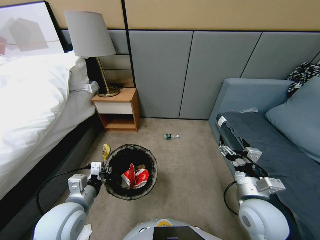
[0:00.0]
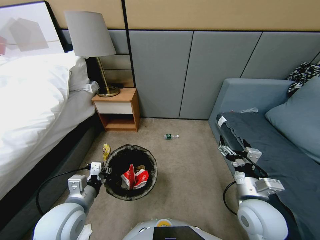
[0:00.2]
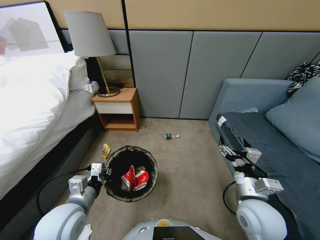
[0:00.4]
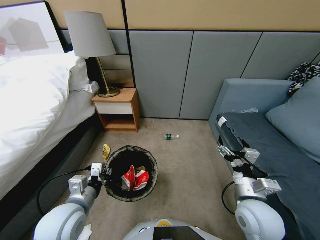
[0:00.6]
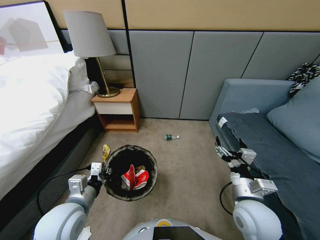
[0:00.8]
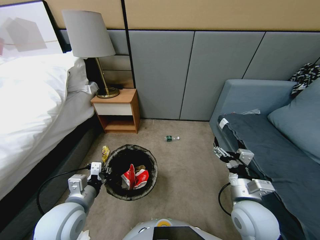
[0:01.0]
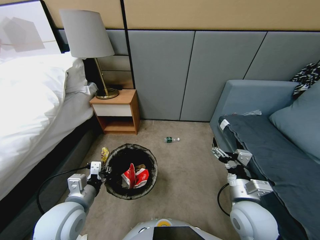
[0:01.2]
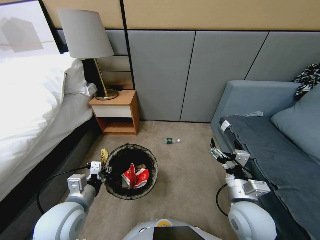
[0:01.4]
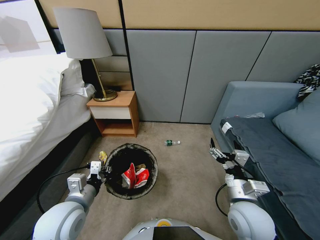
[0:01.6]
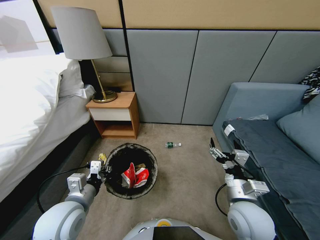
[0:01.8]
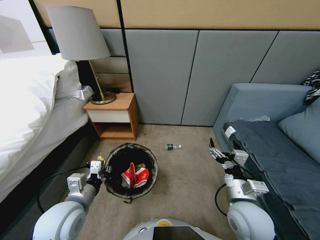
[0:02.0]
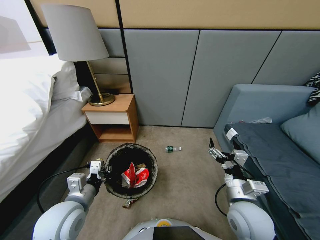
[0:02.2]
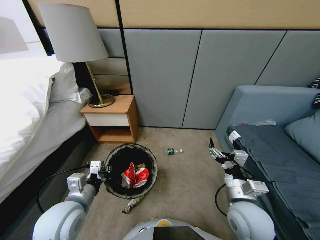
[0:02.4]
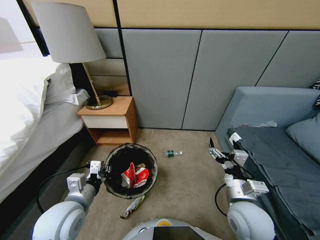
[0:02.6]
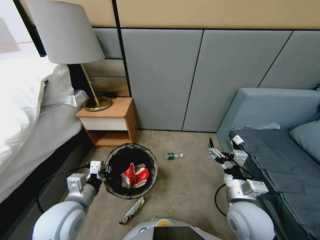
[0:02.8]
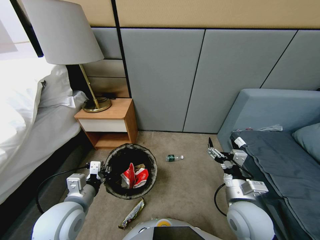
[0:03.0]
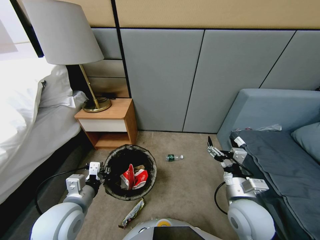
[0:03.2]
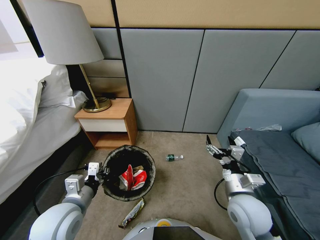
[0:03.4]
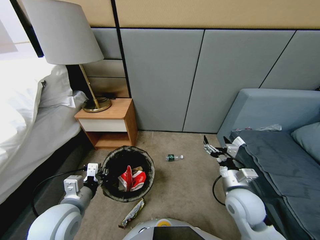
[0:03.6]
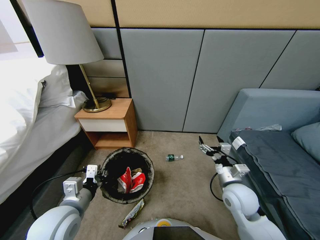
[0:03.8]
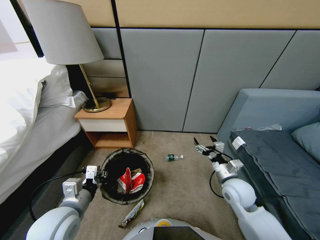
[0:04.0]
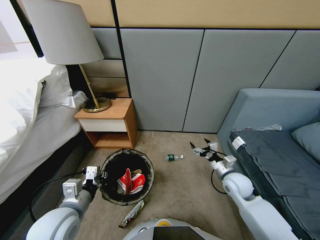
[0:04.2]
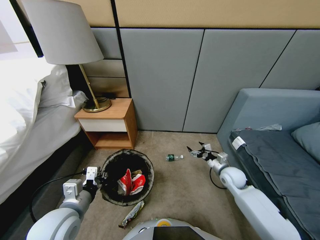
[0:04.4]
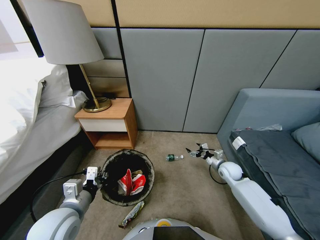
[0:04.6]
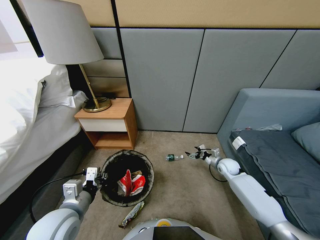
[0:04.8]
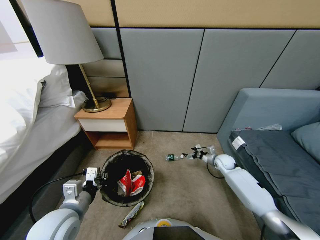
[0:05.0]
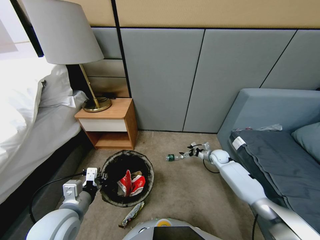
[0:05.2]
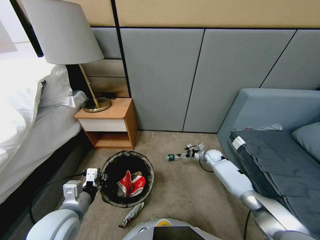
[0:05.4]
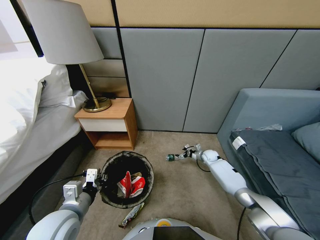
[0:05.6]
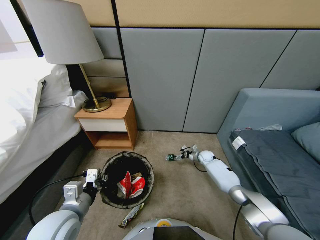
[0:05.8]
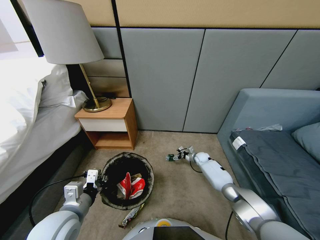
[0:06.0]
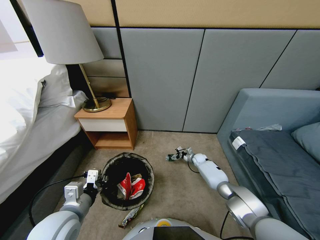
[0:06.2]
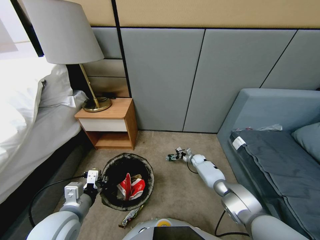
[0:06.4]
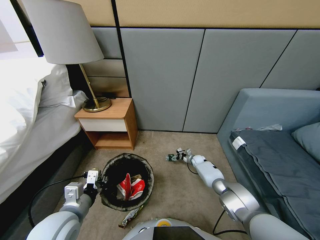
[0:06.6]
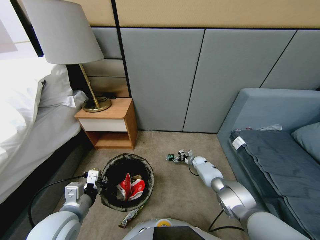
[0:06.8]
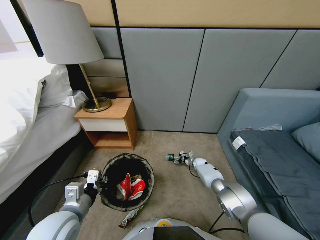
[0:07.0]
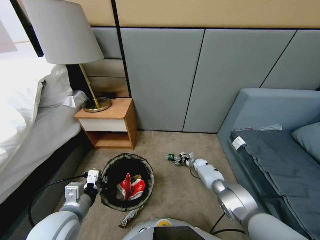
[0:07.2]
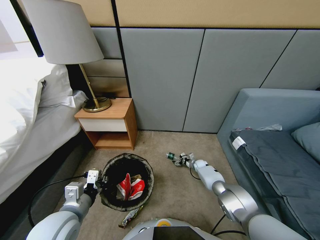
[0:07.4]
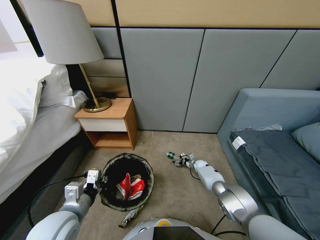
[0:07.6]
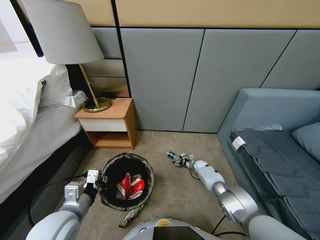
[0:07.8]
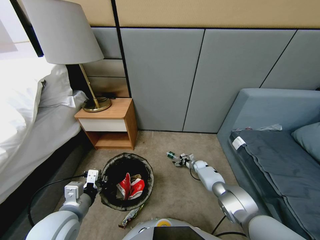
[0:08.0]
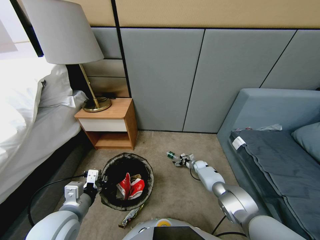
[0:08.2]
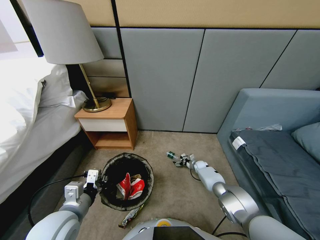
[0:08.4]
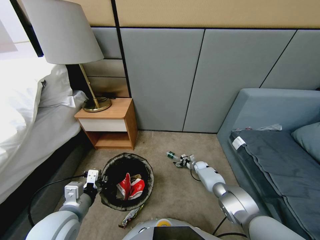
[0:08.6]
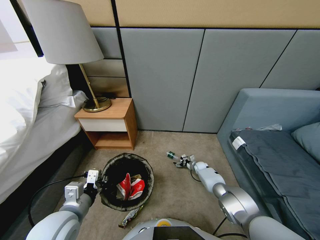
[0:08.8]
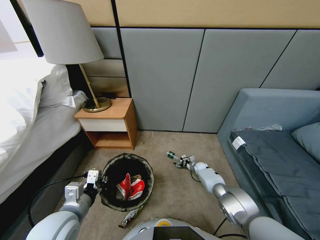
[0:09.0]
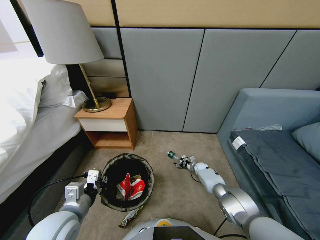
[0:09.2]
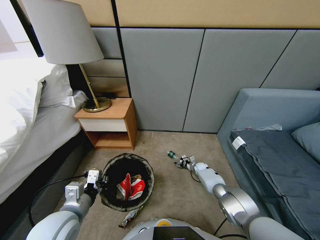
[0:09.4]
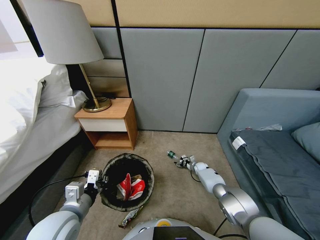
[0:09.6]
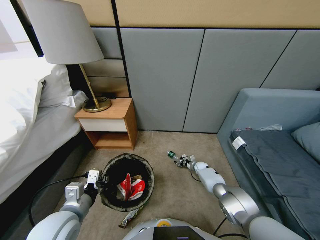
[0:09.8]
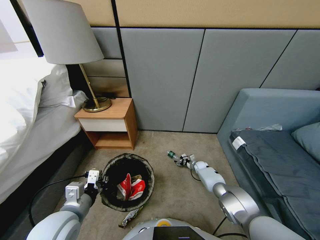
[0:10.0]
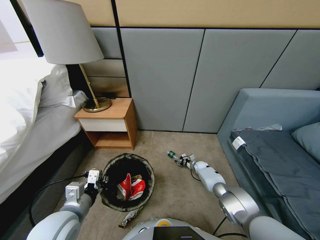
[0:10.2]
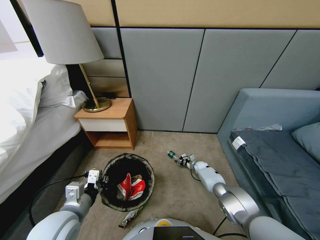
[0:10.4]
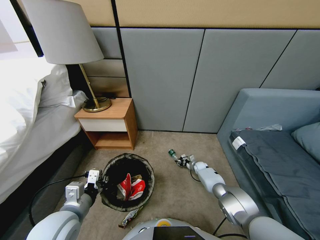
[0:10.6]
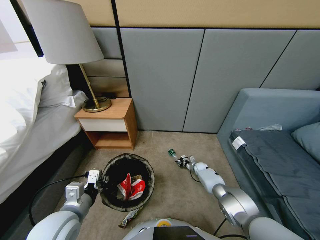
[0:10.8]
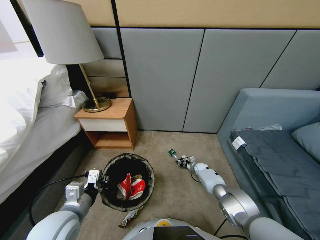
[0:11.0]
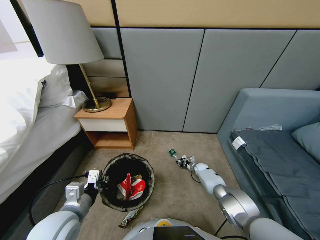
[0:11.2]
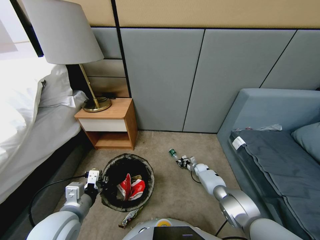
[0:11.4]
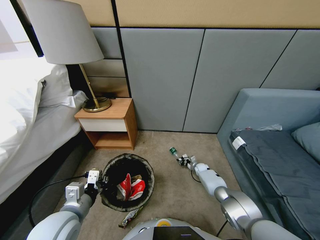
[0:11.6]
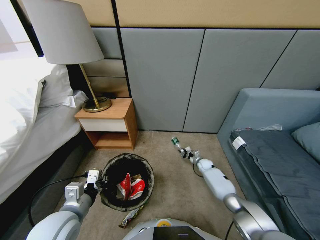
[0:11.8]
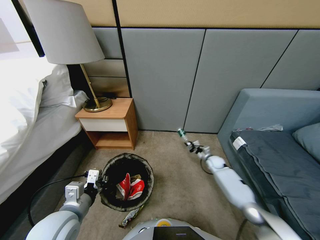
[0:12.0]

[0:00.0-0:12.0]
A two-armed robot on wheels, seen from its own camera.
Task of the whole recording: Pick up the trash bin, then pick up the garbage from the floor and place it into the trash bin.
0:00.0 to 0:01.6: The grippers make only small movements.
0:03.0 to 0:04.4: The right gripper travels forward, downward and to the right by about 25 cm.
0:04.4 to 0:06.0: The right gripper goes about 20 cm forward and downward.
0:06.0 to 0:07.6: The right gripper moves downward, about 5 cm.
0:07.6 to 0:09.0: The grippers move only a little.
0:09.0 to 0:10.4: Both grippers stay about where they are.
0:10.4 to 0:12.0: The right gripper travels upward by some 20 cm.

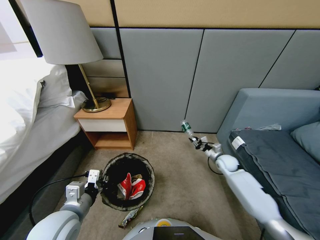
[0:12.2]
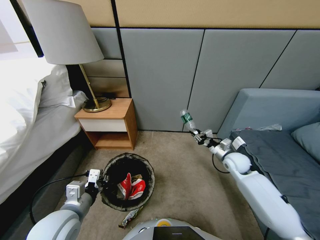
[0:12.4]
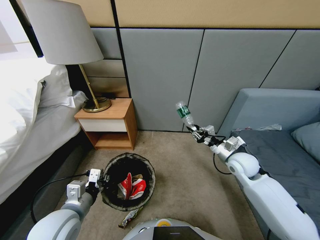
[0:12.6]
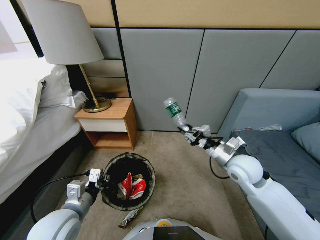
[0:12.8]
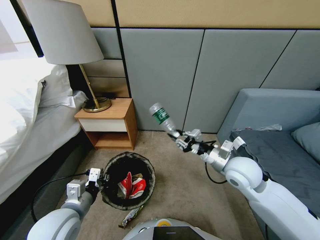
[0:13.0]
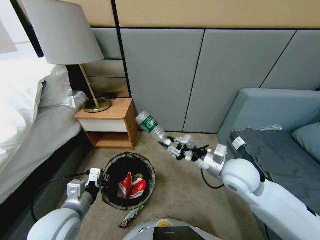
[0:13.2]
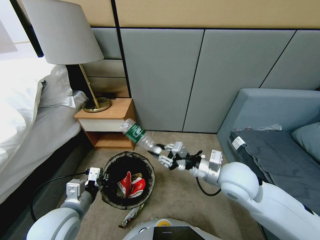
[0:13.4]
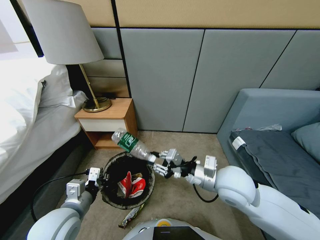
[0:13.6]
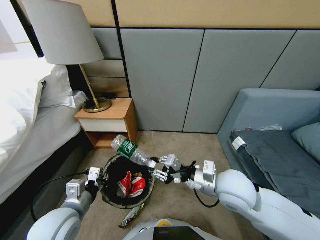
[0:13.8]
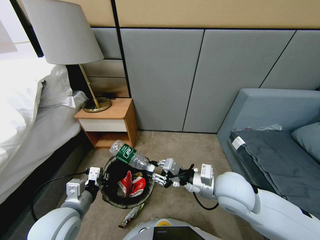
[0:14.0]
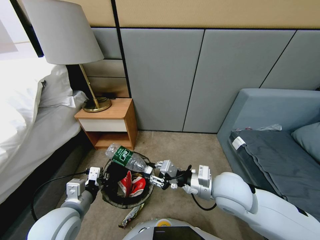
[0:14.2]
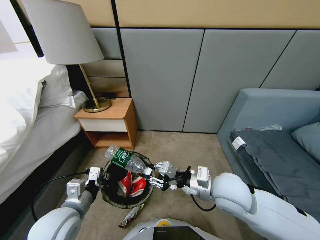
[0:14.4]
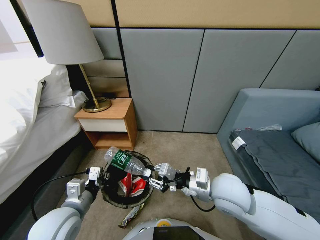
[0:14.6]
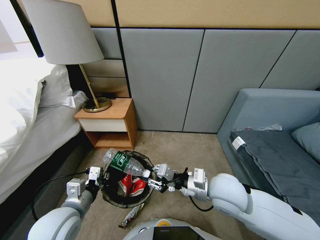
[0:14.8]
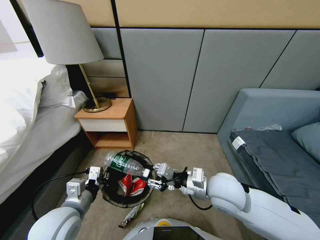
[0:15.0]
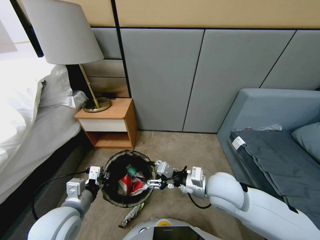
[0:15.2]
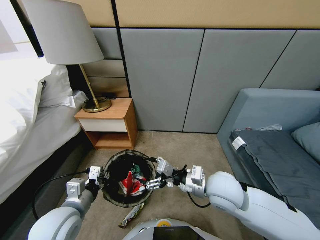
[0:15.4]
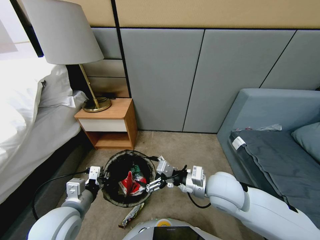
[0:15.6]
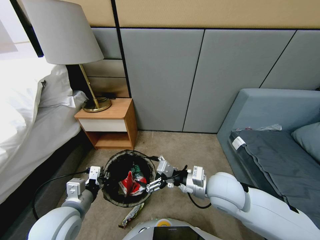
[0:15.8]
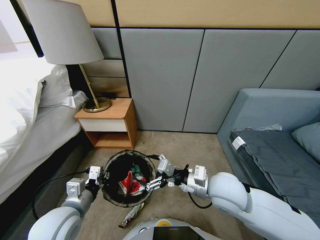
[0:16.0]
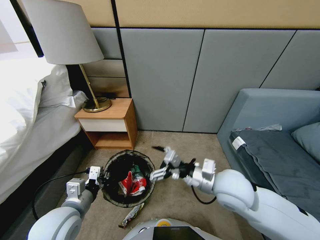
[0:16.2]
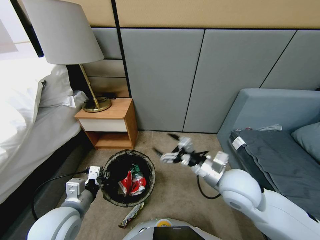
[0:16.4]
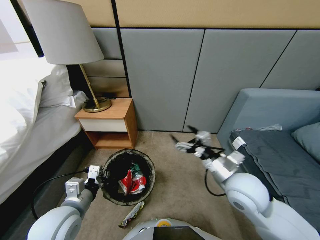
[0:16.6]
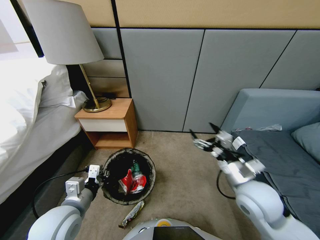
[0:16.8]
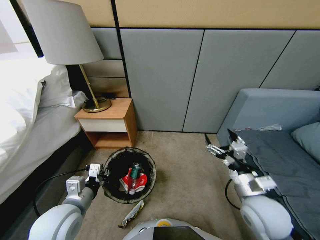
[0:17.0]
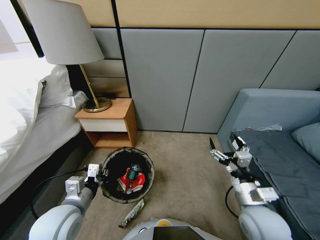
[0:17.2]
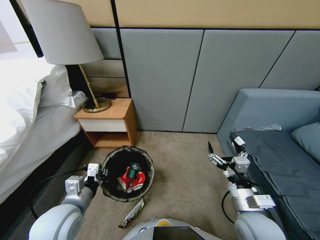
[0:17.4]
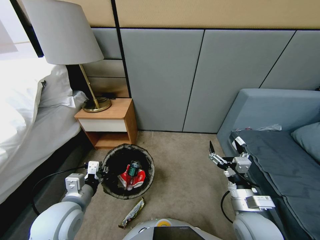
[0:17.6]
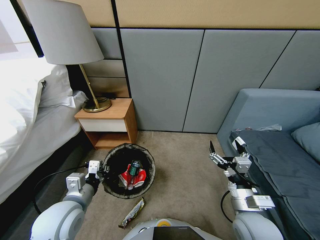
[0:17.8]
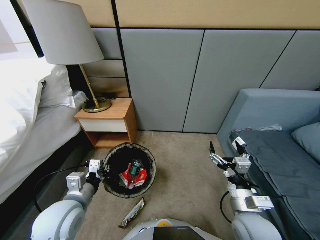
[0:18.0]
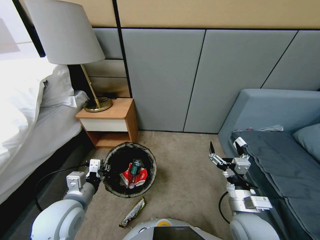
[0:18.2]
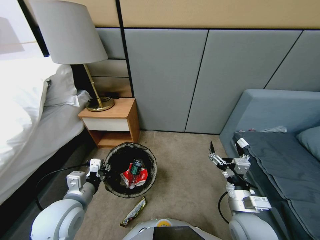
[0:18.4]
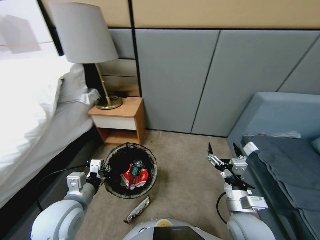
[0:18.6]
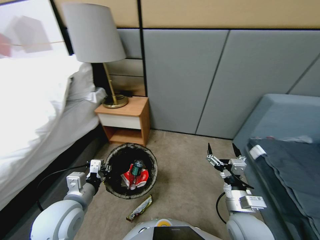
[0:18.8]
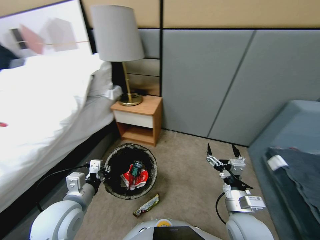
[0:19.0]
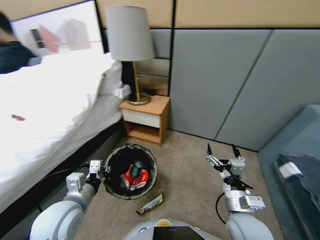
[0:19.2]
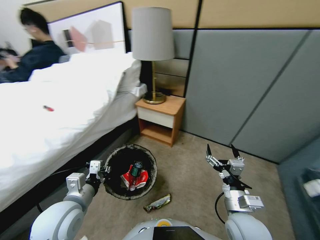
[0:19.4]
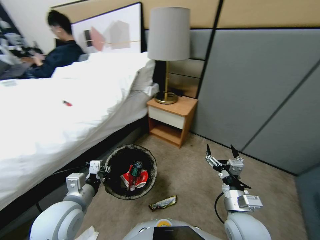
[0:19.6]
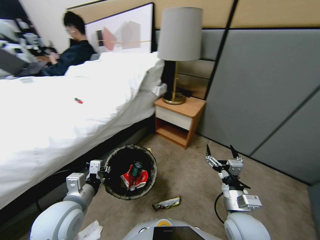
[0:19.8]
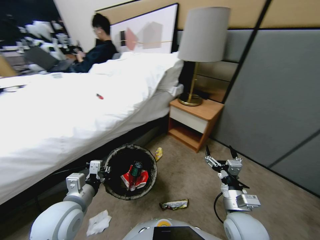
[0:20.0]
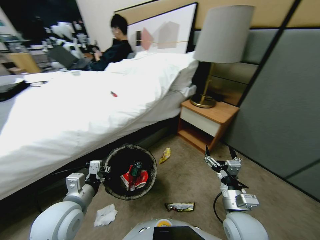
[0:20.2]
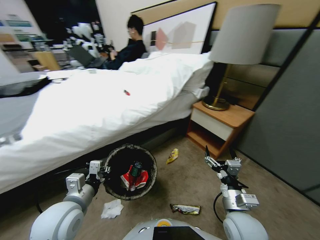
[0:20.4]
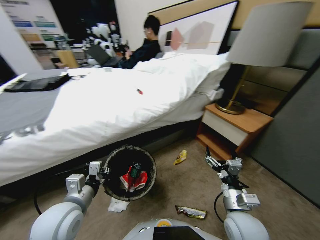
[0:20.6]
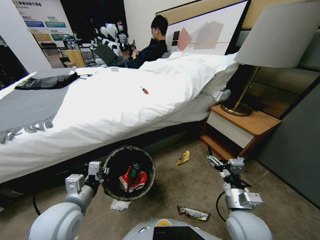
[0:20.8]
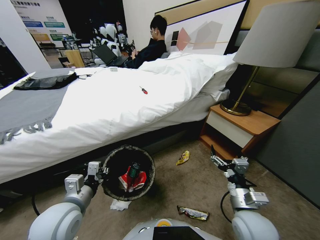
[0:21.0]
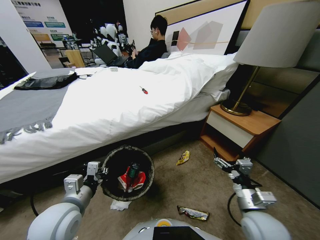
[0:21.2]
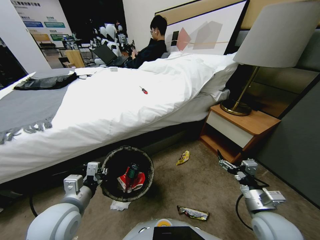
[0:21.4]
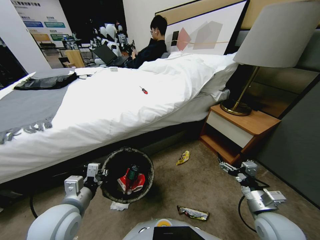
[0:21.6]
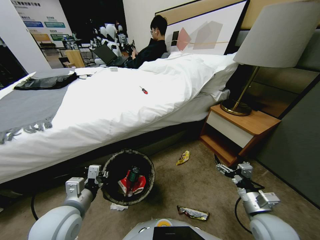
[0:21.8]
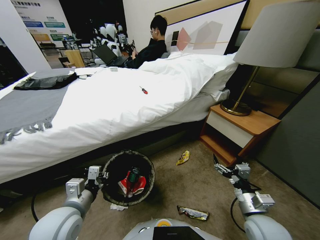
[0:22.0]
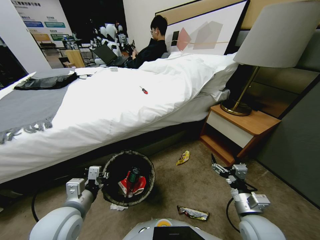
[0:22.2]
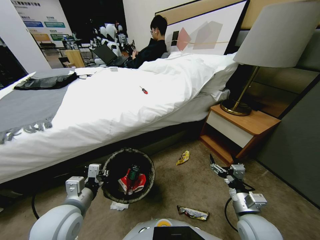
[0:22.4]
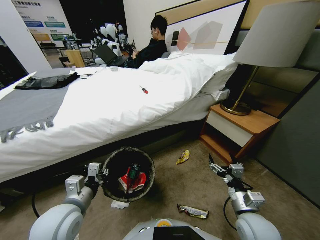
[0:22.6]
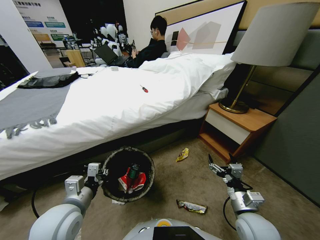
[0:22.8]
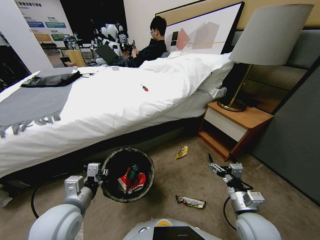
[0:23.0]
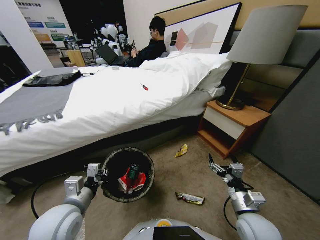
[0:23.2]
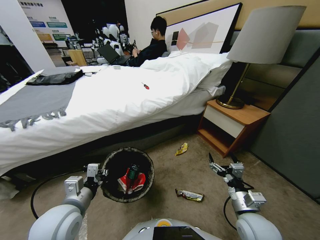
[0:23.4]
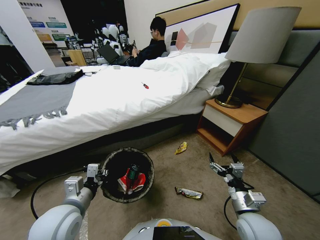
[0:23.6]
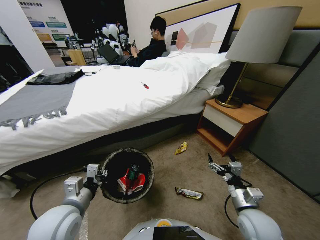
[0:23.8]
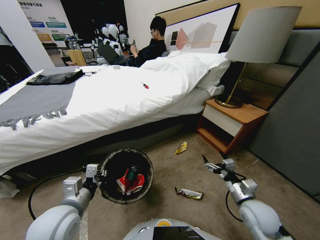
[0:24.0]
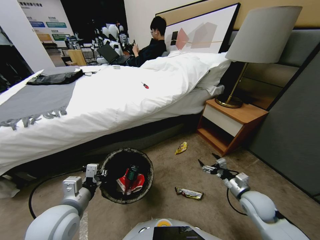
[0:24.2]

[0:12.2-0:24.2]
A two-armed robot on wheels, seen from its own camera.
Task of the whole recording: Pick up the trash bin, then pick up the garbage from the floor and place it into the trash bin.
0:12.2 to 0:13.8: The right gripper travels backward, to the left and upward by roughly 30 cm.
0:13.8 to 0:15.2: The right gripper opens its fingers.
0:15.2 to 0:16.6: The right gripper is displaced to the right by approximately 5 cm.
0:16.6 to 0:18.2: The right gripper travels backward and downward by about 10 cm.
0:19.8 to 0:21.2: The right gripper moves to the right, approximately 10 cm.
0:21.2 to 0:22.6: There are only small adjustments of the grippers.
0:22.6 to 0:24.2: The right gripper heads to the right, forward and downward, covering some 15 cm.
